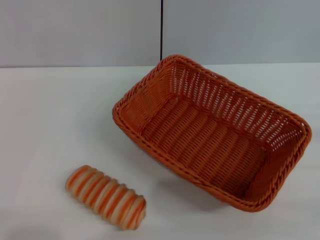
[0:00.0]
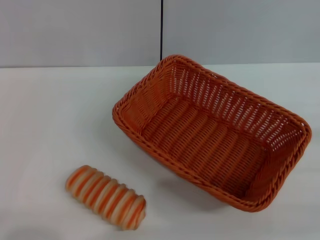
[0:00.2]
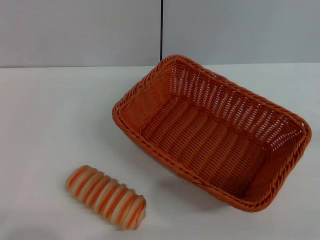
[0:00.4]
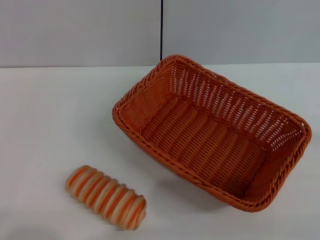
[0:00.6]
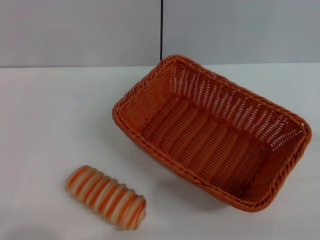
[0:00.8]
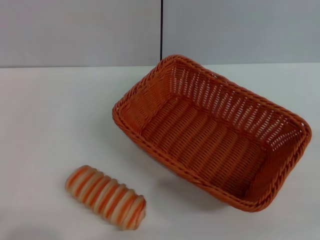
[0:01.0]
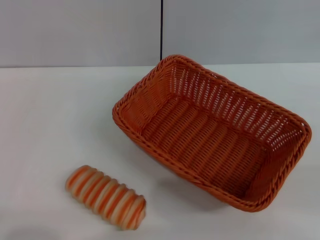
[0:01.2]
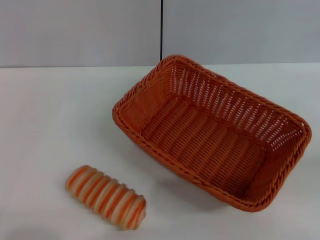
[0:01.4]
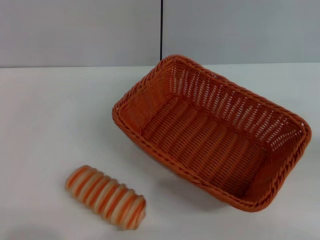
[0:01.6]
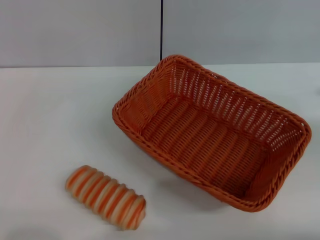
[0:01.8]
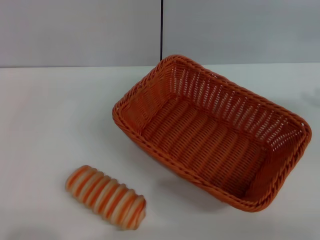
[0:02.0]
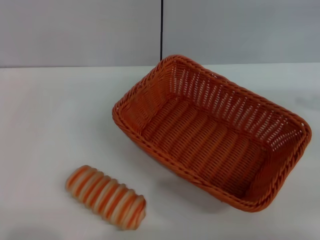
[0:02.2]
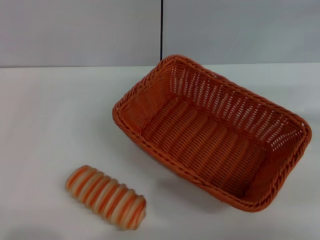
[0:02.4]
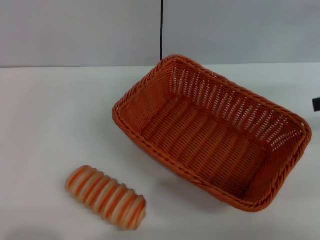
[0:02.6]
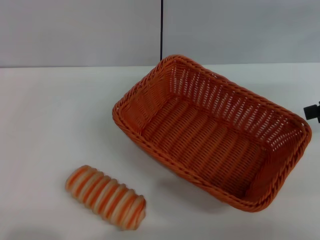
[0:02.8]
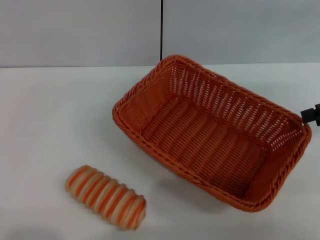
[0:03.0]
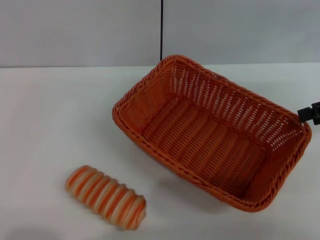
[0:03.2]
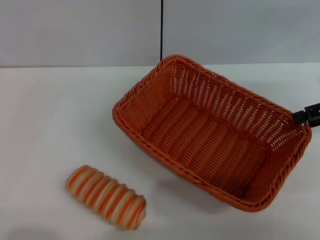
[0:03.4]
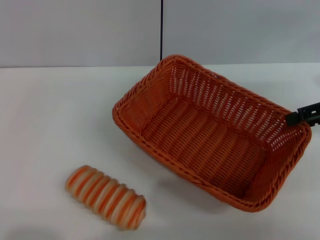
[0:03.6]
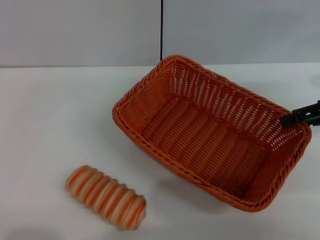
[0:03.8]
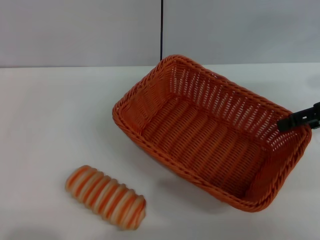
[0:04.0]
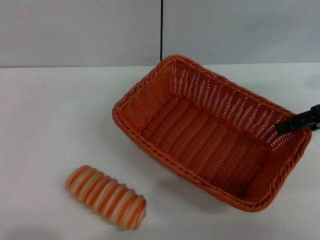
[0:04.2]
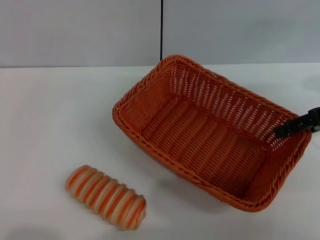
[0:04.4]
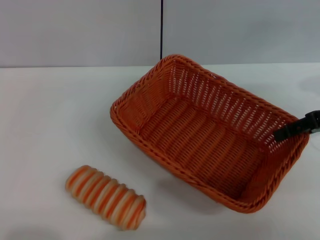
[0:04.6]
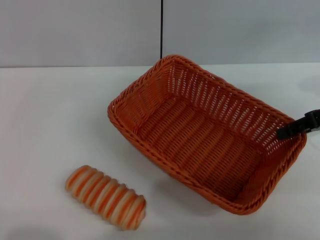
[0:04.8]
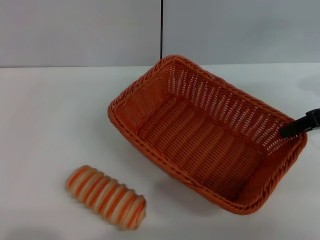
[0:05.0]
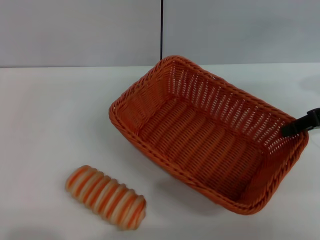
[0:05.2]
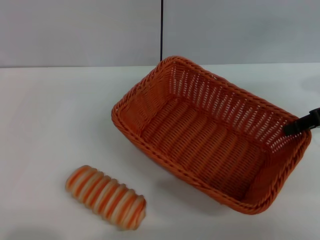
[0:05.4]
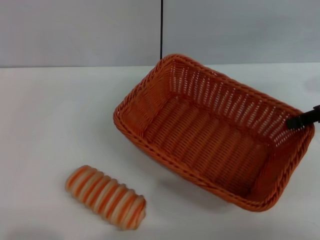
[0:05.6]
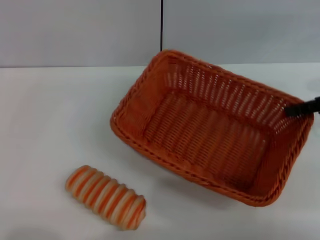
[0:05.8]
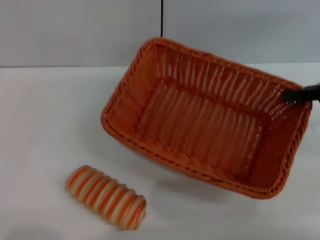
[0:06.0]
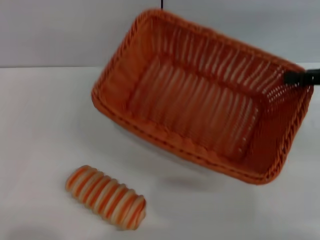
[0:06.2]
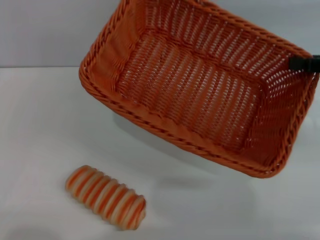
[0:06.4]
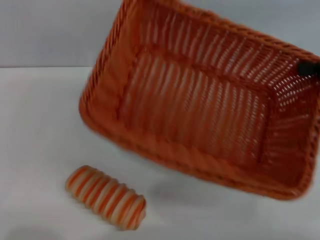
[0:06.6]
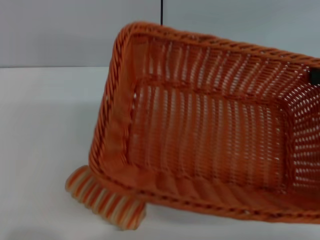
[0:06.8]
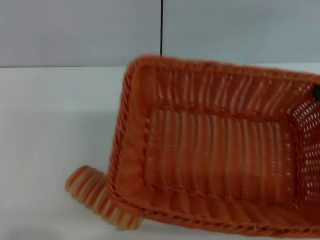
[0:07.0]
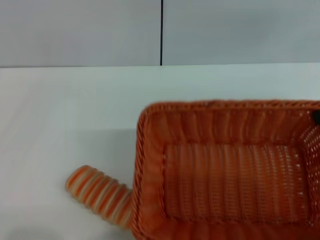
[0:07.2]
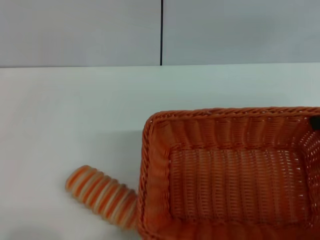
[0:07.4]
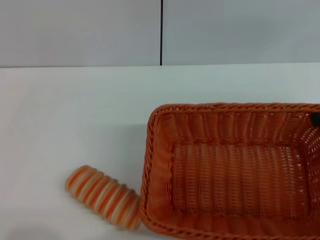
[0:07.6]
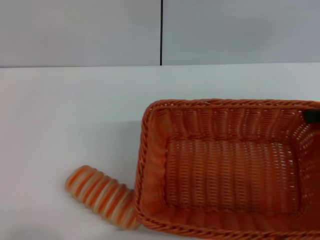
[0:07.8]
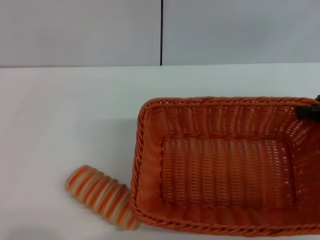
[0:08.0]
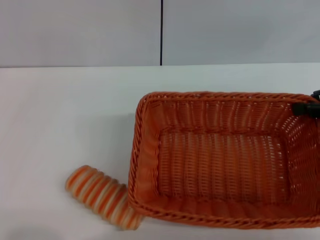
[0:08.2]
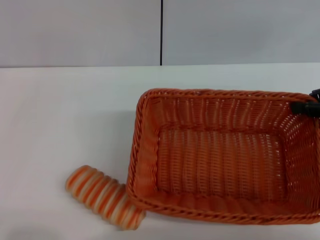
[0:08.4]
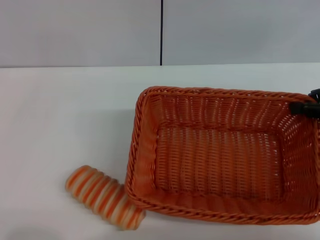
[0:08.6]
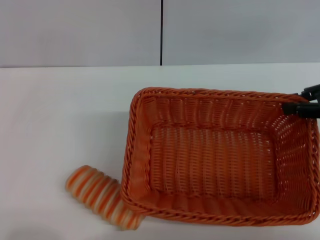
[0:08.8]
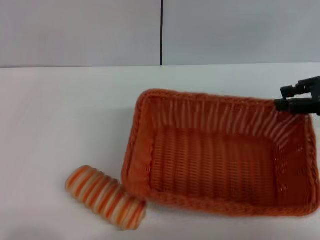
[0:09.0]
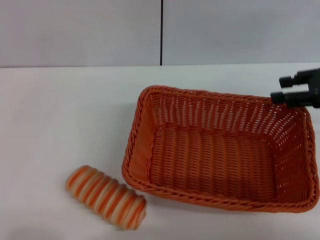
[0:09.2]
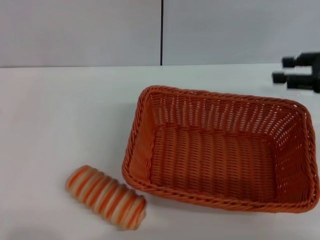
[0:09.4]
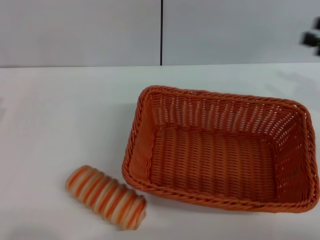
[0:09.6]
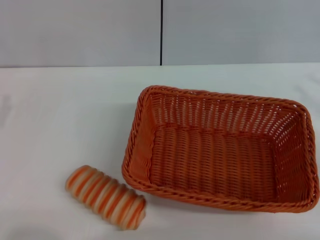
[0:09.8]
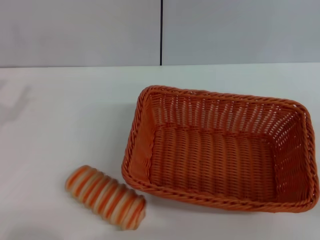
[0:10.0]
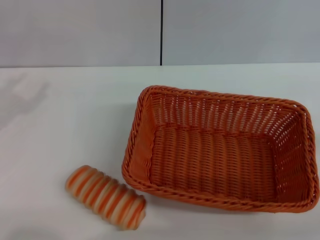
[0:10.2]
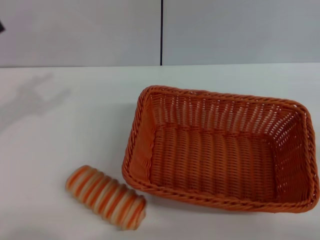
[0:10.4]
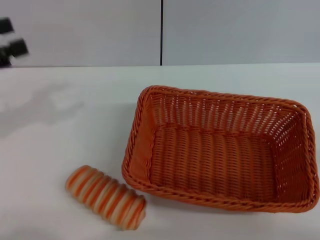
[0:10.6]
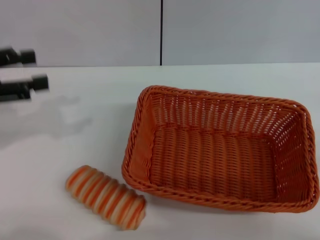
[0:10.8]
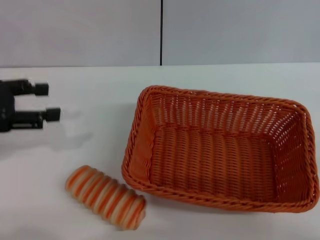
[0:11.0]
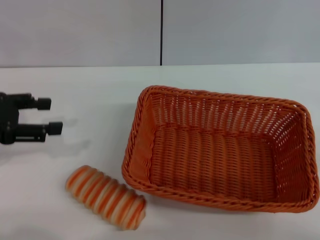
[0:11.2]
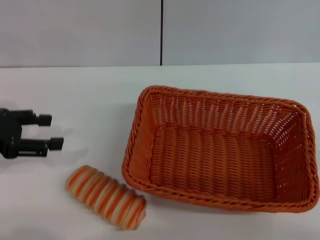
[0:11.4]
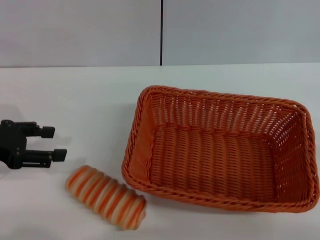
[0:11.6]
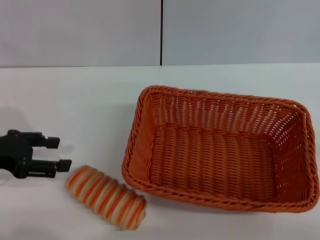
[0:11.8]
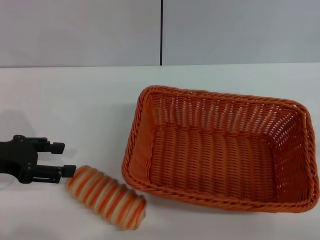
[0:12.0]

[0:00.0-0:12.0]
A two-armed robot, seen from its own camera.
Step, 0:00.0 to 0:06.2: Pick up the light basket with the right gripper.
Step, 0:06.4 to 0:09.4: Place the light basket in the center of view with the right gripper.
0:01.6 to 0:03.0: The right gripper travels forward and to the left by some 15 cm.
0:04.4 to 0:06.0: The right gripper closes.
0:07.6 to 0:09.0: The grippers stay close to where they were, moving slightly.
0:09.0 to 0:10.4: The left gripper shifts roughly 15 cm upward and forward. The right gripper is displaced backward, downward and to the right by approximately 20 cm, and opens its fingers.
0:10.4 to 0:12.0: The left gripper goes approximately 5 cm to the right.

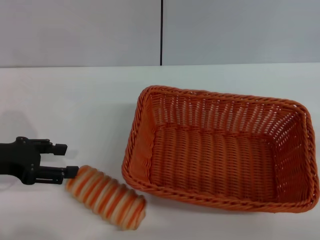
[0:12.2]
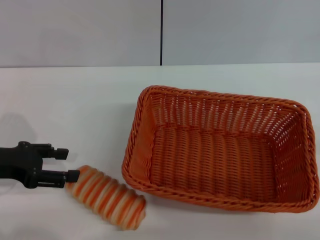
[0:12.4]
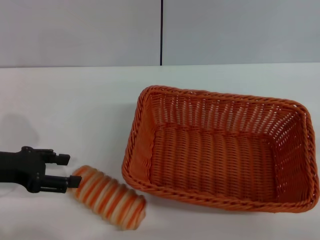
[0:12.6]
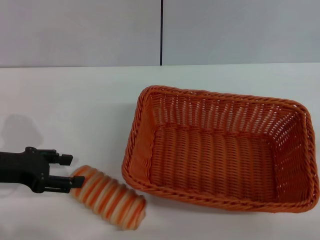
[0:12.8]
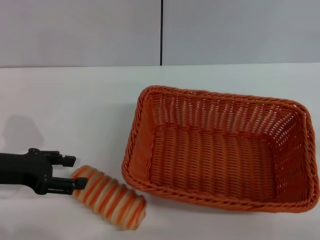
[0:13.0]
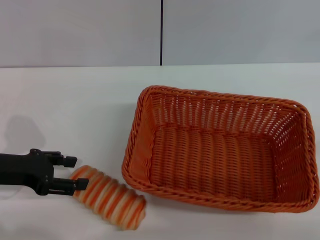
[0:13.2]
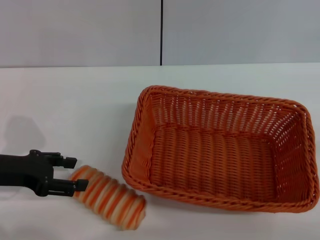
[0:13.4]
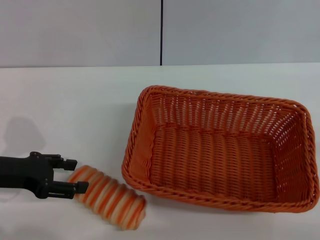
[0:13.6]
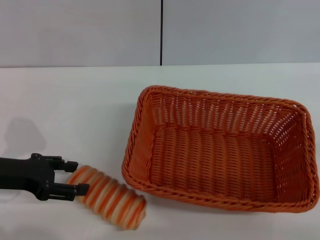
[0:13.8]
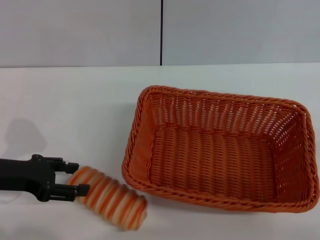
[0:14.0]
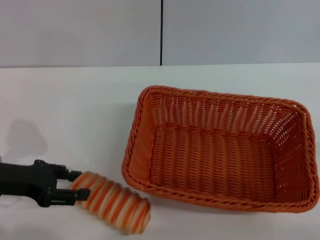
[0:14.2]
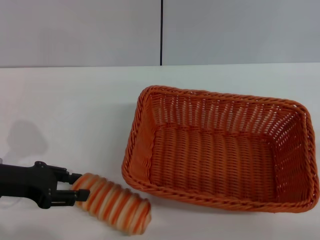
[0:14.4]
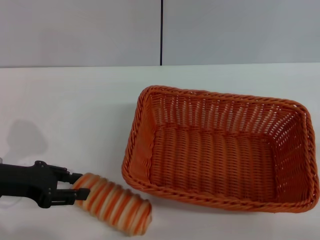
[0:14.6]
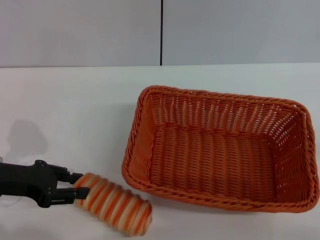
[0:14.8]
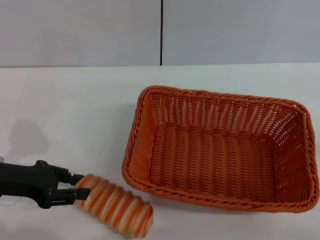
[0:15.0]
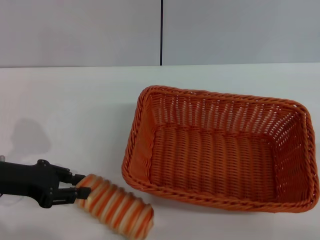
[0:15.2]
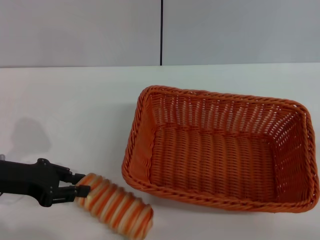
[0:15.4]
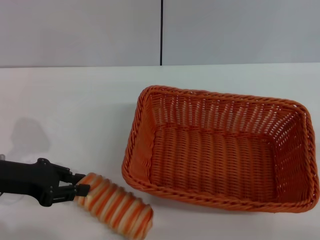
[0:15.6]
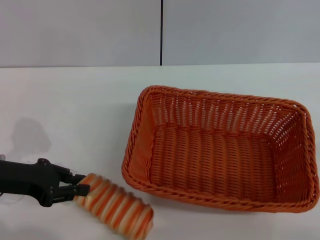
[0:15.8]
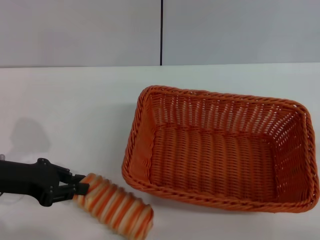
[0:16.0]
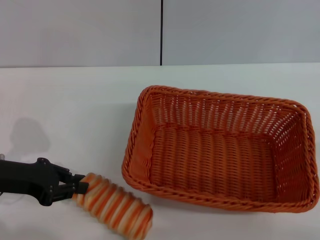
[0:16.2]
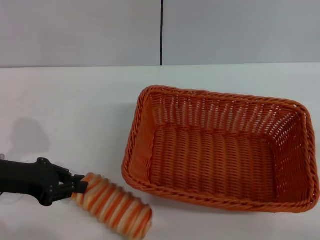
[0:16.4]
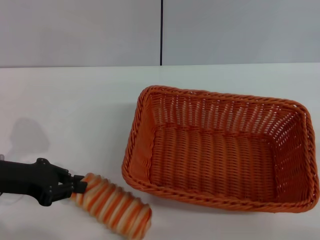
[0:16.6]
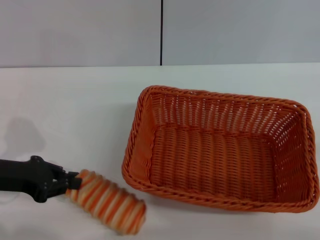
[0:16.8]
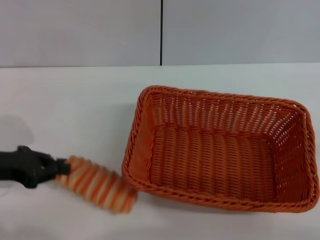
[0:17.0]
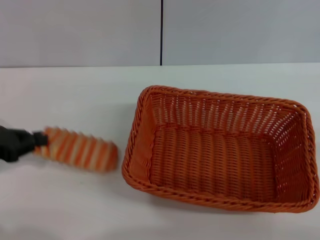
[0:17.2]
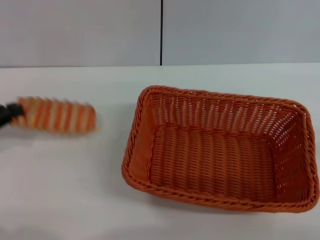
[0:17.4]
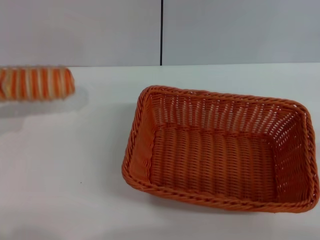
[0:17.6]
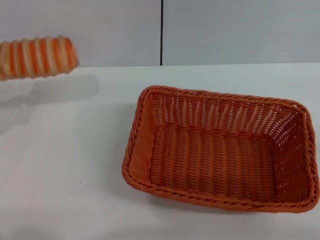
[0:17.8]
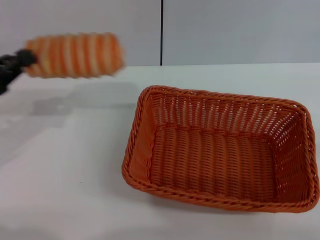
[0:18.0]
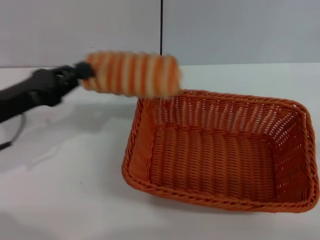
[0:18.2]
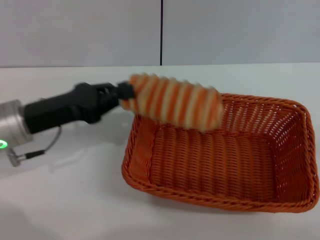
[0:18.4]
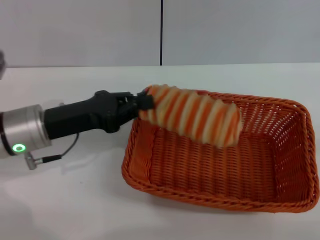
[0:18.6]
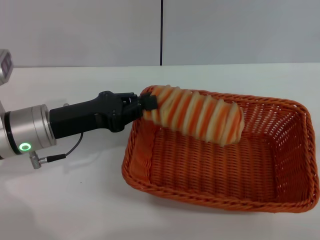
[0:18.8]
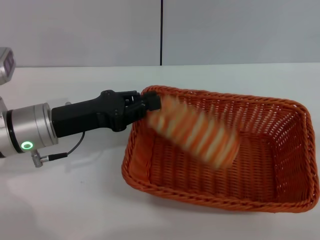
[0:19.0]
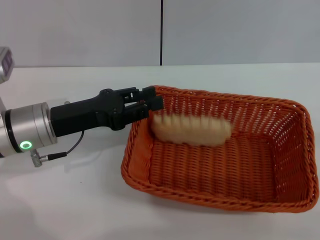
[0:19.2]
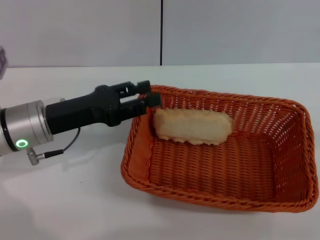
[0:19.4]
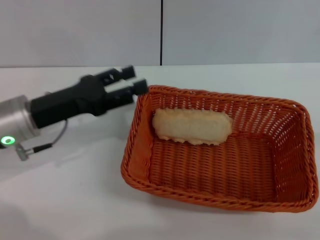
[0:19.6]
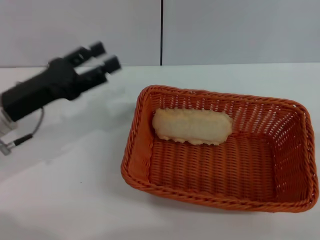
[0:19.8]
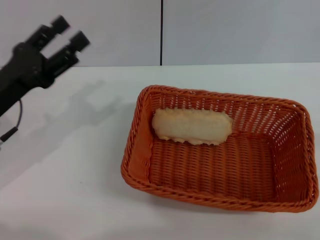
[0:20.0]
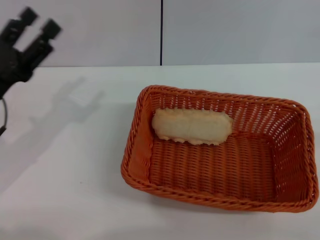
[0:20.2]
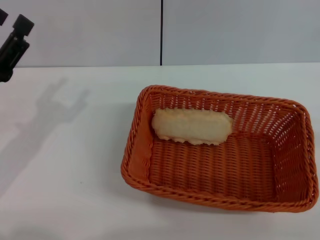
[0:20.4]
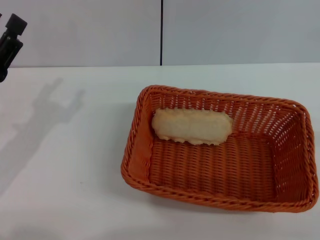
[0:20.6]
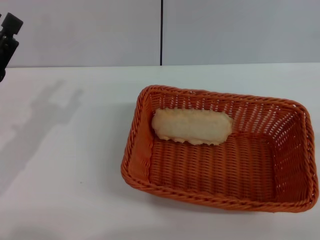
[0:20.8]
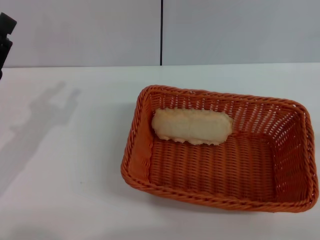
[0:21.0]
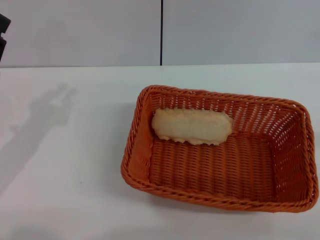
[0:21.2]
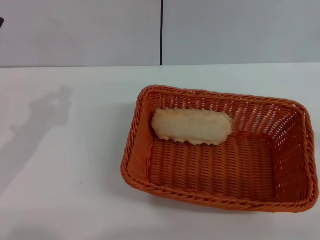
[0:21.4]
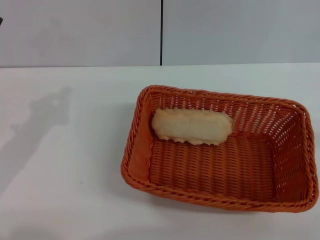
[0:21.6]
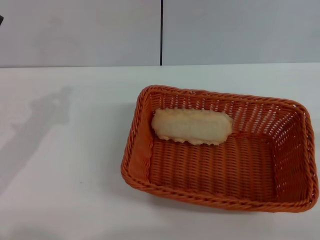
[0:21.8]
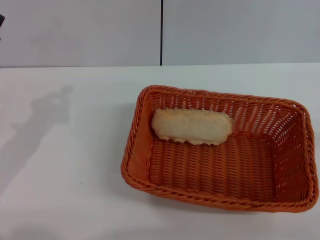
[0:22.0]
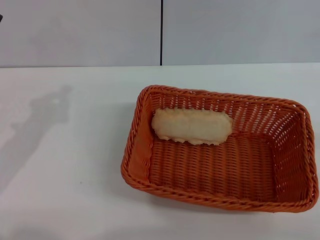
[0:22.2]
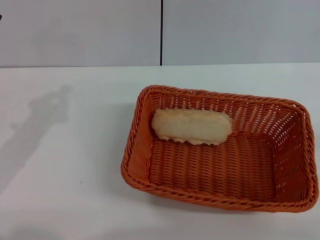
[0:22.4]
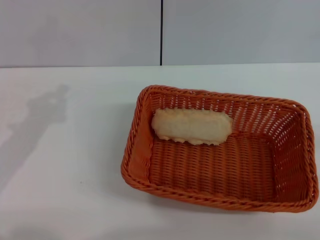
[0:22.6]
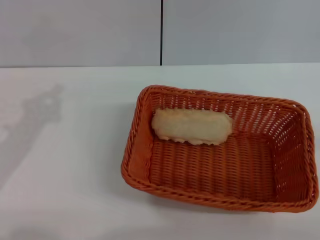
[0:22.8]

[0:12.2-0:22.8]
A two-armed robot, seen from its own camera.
Step, 0:12.2 to 0:17.2: Pick up the long bread with the left gripper.
Step, 0:17.6 to 0:19.6: Place the long bread into the light basket with the left gripper.
0:12.2 to 0:13.8: The grippers stay close to where they were, moving slightly.
0:13.8 to 0:15.2: The left gripper closes up.
0:15.2 to 0:16.8: The two grippers keep their place.
0:16.8 to 0:18.2: The left gripper moves approximately 10 cm to the left and comes back.
0:18.2 to 0:19.8: The left gripper opens.
0:19.8 to 0:21.2: The left gripper shifts by about 5 cm.
